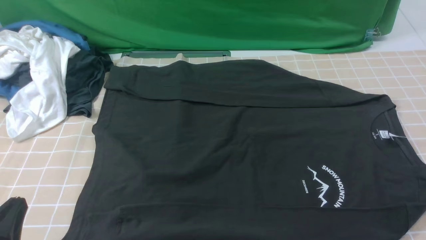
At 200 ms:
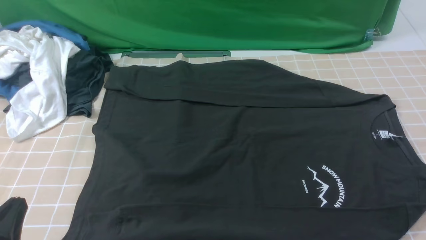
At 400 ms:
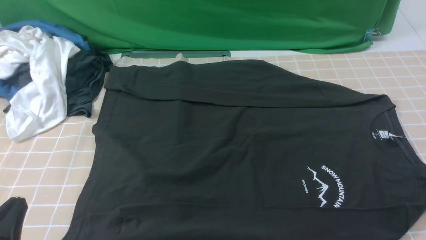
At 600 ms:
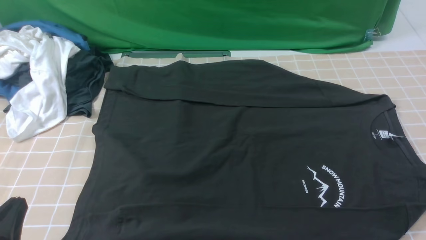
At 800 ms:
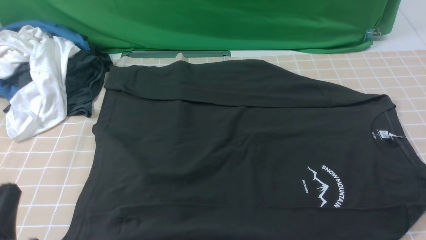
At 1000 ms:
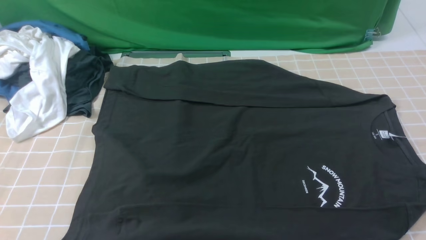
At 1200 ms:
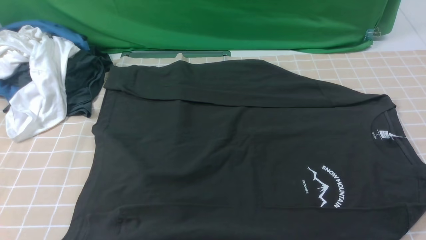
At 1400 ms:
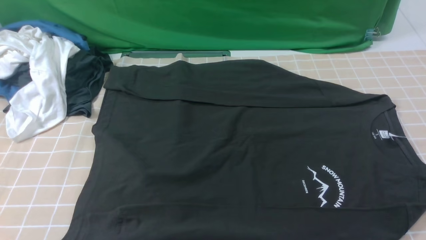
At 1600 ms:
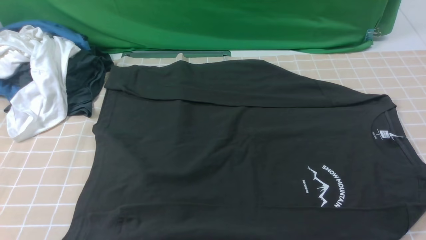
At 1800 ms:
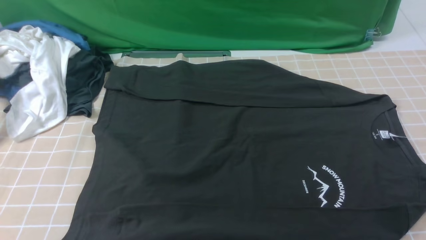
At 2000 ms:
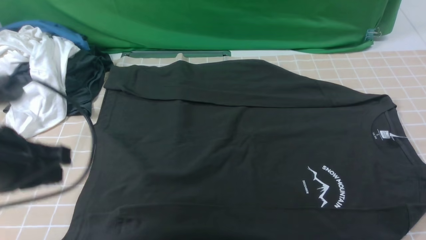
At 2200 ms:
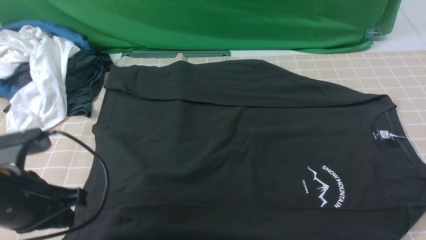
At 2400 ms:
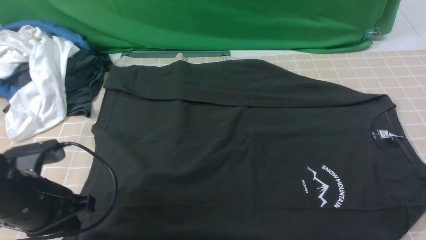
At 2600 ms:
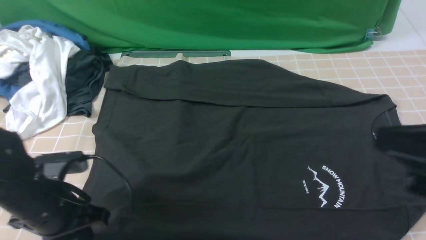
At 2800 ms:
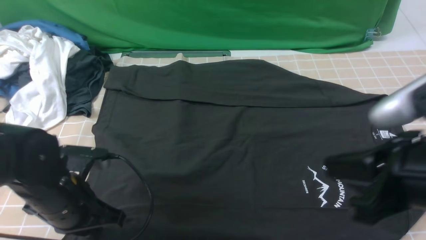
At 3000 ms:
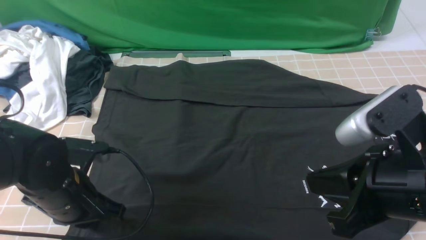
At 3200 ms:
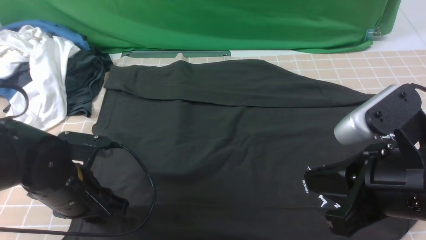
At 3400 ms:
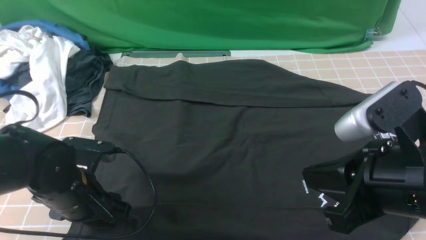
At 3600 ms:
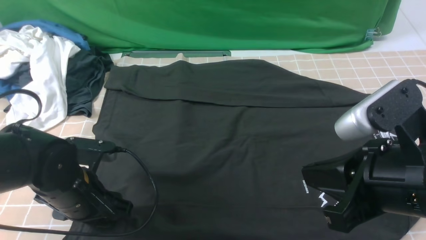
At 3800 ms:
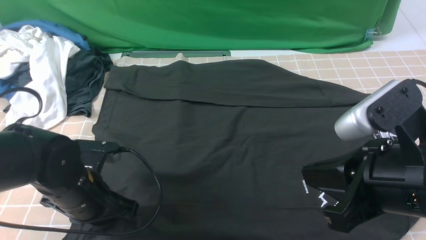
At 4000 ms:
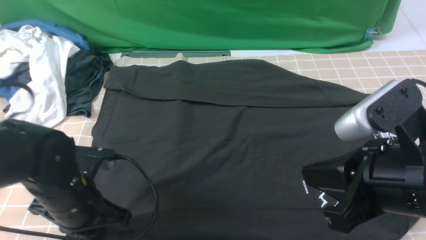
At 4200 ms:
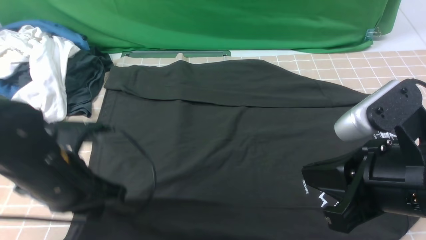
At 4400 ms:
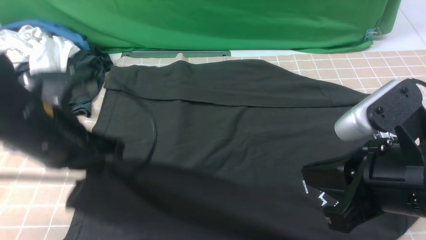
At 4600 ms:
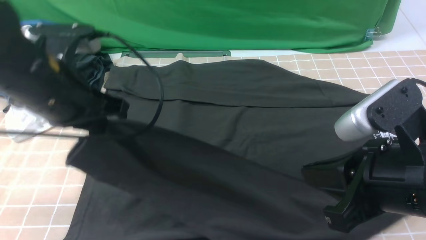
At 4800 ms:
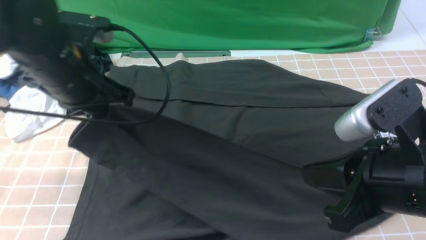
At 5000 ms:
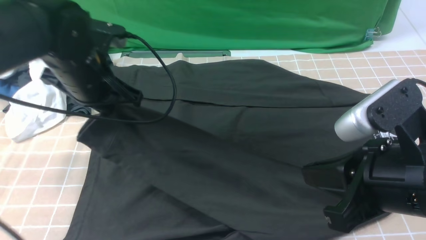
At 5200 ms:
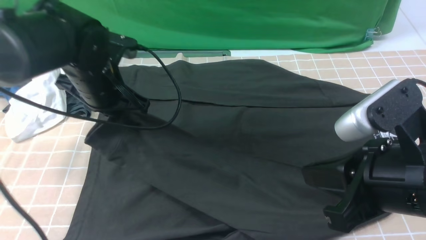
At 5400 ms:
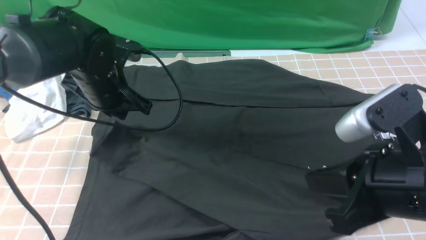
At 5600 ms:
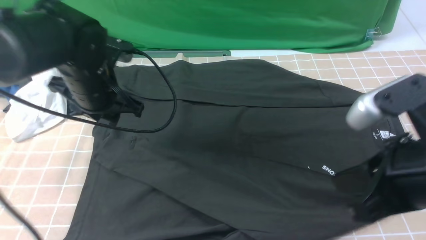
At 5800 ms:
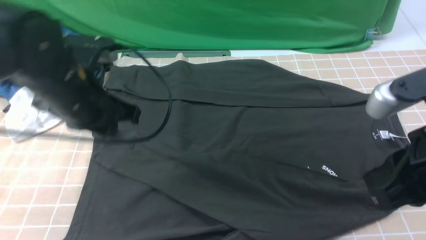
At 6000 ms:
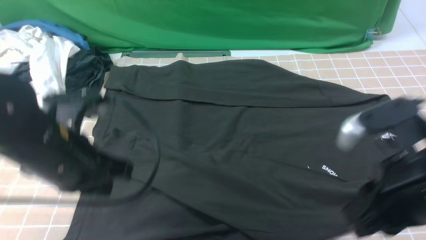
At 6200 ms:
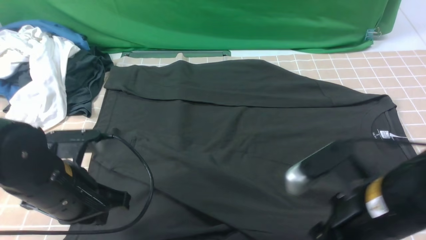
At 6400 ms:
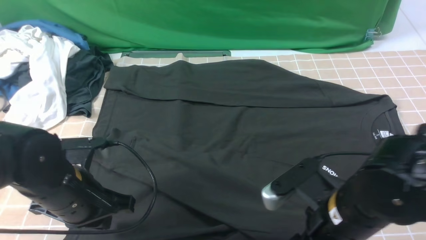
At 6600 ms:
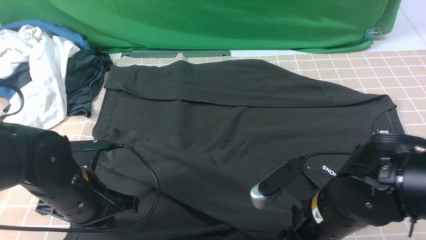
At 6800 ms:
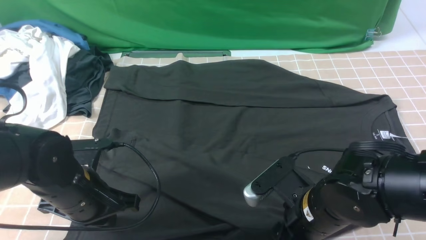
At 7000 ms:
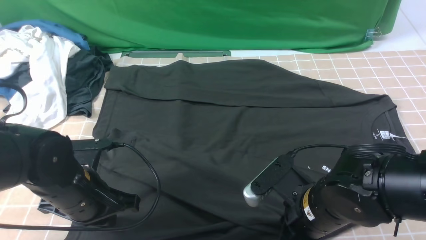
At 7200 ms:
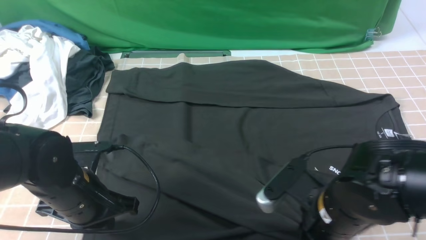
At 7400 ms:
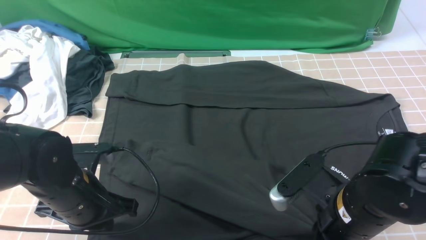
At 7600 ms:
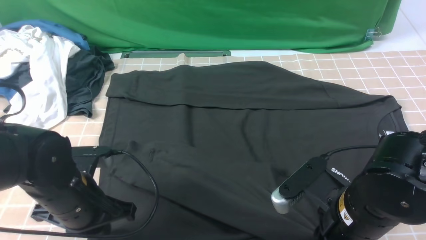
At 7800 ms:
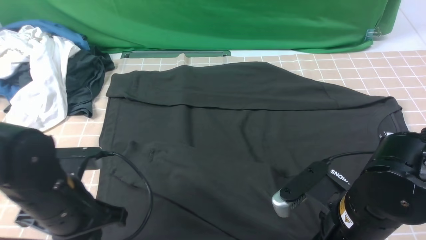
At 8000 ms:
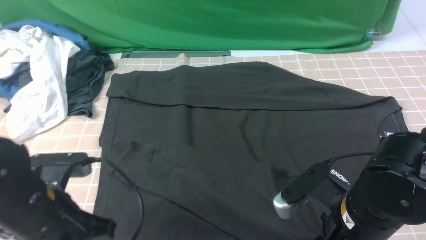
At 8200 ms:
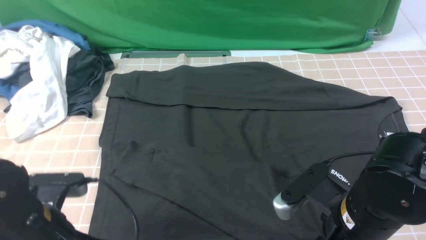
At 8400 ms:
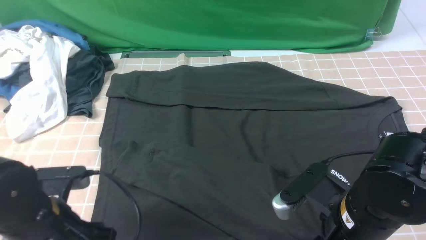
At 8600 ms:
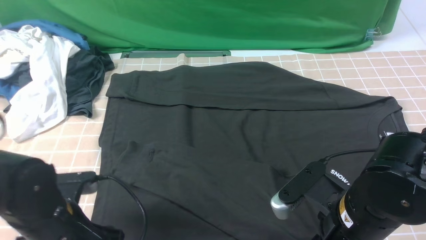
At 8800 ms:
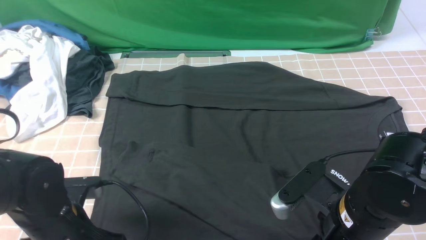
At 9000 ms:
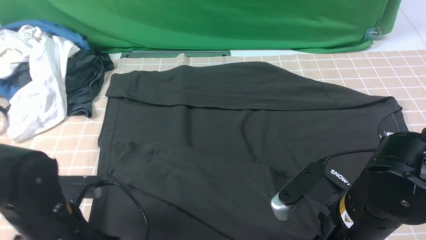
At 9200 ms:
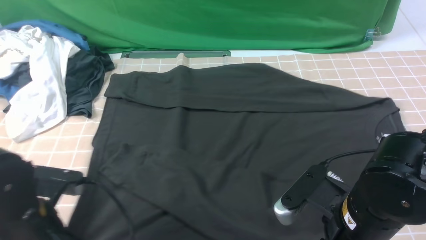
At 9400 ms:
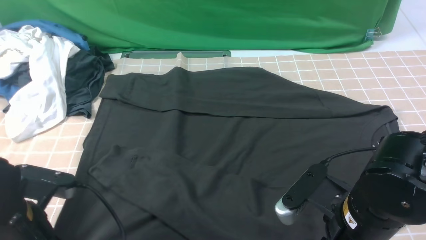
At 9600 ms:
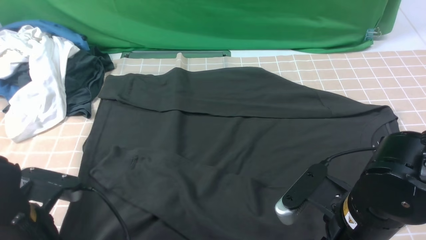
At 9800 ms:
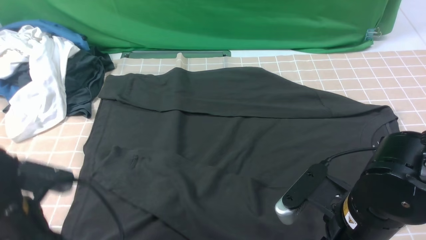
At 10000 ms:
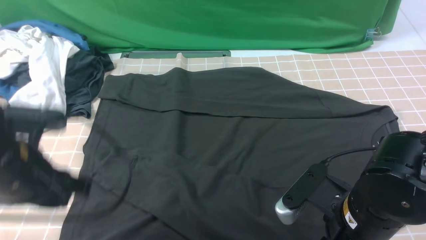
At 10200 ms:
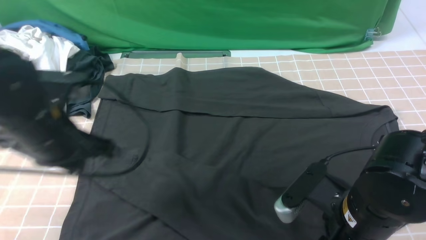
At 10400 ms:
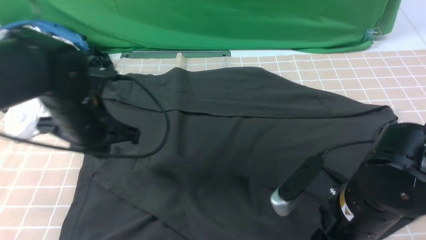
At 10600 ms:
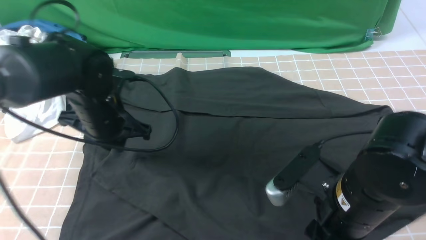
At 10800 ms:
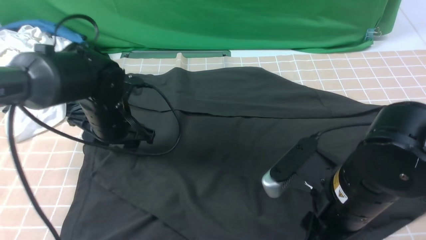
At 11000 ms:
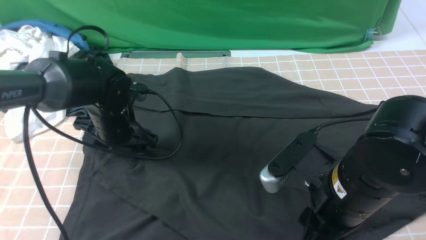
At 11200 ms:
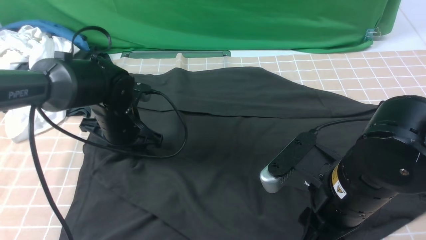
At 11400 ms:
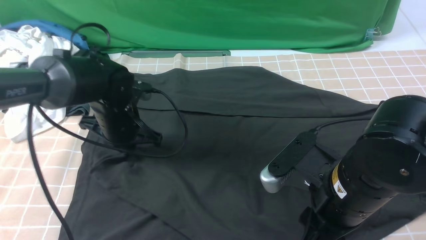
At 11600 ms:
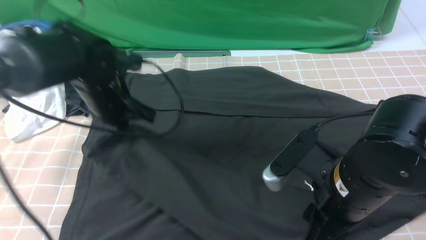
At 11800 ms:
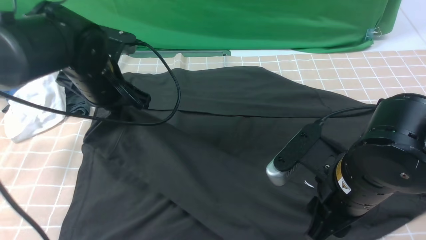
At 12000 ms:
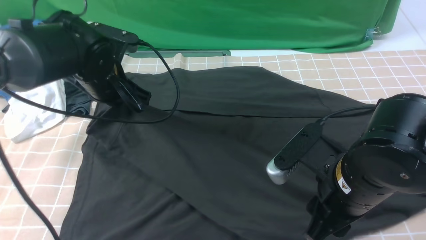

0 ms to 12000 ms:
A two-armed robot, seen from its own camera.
Step, 0 ms to 3800 ms: use the left arm to clamp the cuff closest to it.
0 ms to 1600 ms: The left gripper shifts roughly 20 cm upward.
1600 ms to 3000 ms: The right gripper moves to the left, upward and forward, approximately 20 cm, and closes its fingers. The left gripper goes approximately 25 cm downward and forward.
3000 ms to 4400 ms: The left gripper moves upward, about 10 cm, and opens, then closes once more.
4400 ms to 6000 ms: The right gripper opens its fingers; the left gripper reaches about 10 cm forward, then returns.
6000 ms to 7600 ms: The grippers both shift downward by some 5 cm. The right gripper opens, then closes again.
7600 ms to 9000 ms: The right gripper opens up; the left gripper opens, then closes again.
9000 ms to 10400 ms: The left gripper goes approximately 15 cm forward and upward.
10400 ms to 12000 ms: The left gripper travels forward by some 5 cm, reaches roughly 5 cm downward, then returns, and opens, then closes once more.

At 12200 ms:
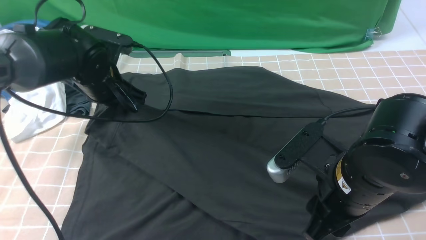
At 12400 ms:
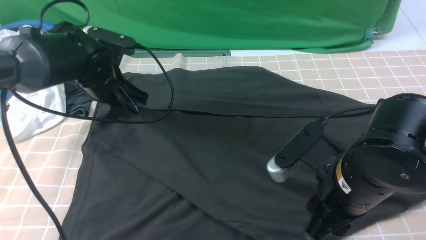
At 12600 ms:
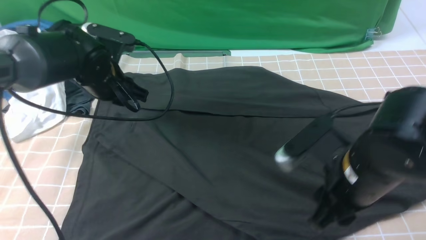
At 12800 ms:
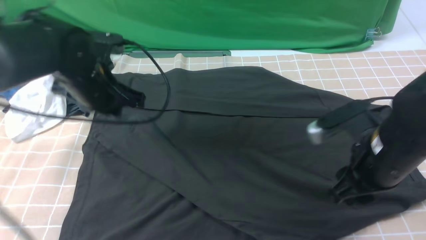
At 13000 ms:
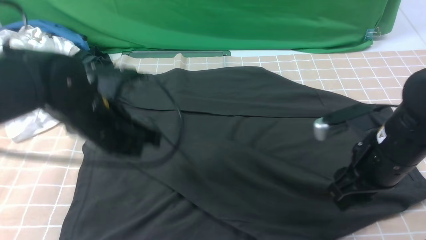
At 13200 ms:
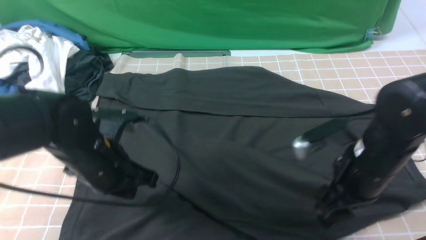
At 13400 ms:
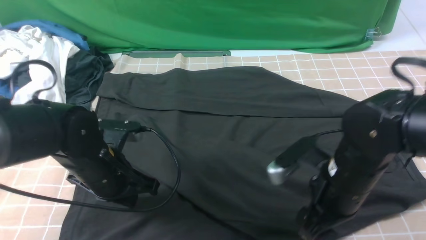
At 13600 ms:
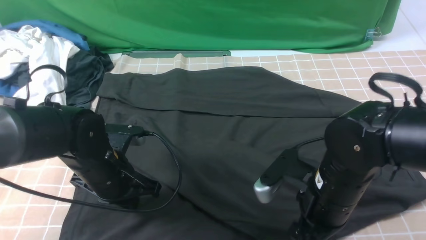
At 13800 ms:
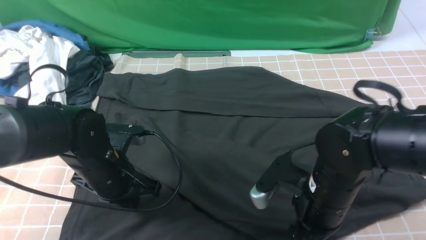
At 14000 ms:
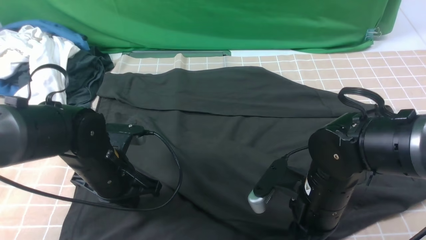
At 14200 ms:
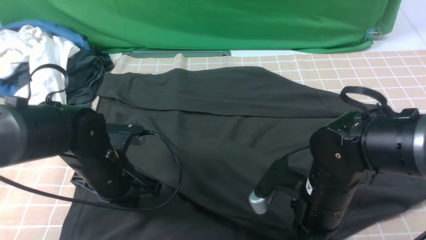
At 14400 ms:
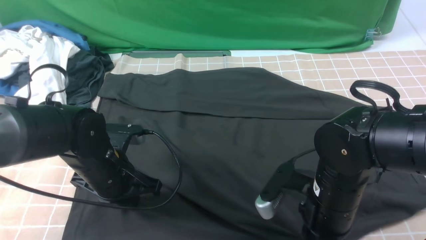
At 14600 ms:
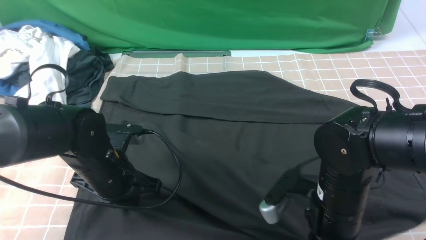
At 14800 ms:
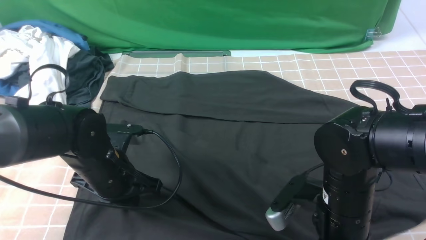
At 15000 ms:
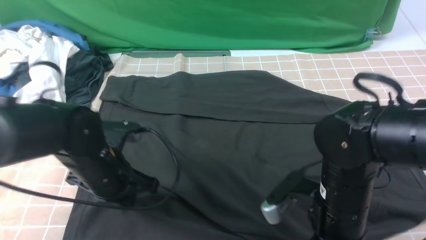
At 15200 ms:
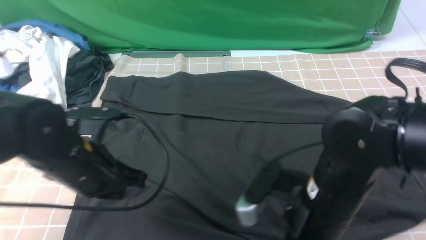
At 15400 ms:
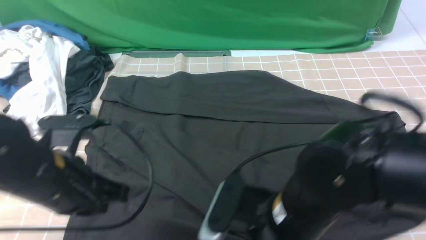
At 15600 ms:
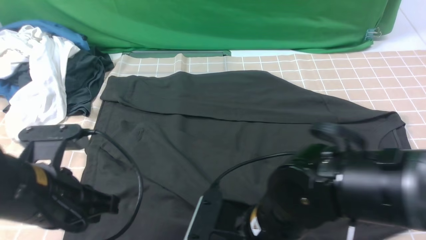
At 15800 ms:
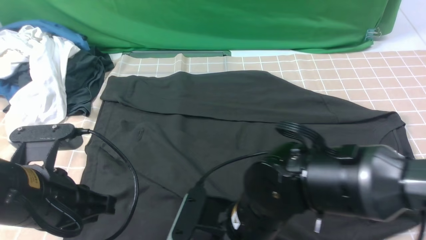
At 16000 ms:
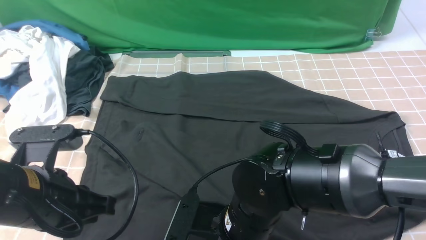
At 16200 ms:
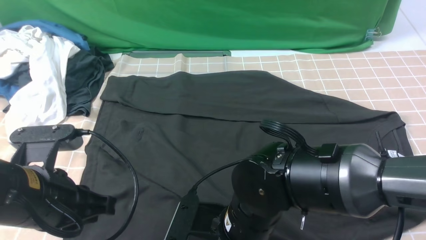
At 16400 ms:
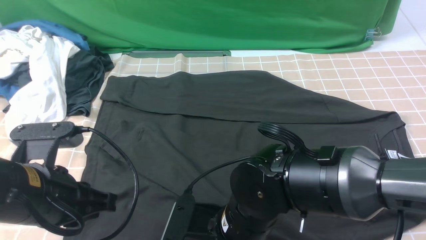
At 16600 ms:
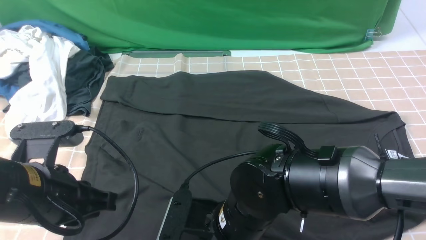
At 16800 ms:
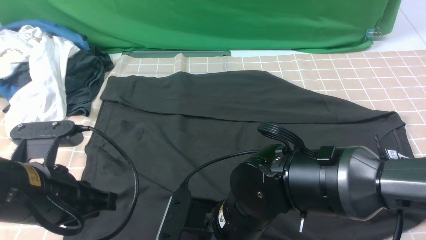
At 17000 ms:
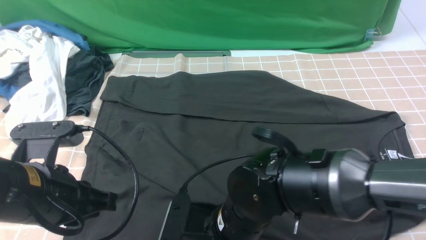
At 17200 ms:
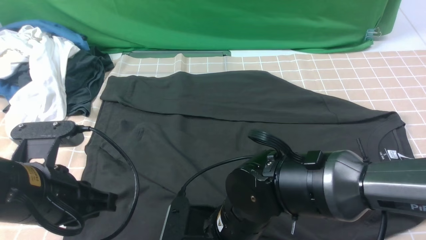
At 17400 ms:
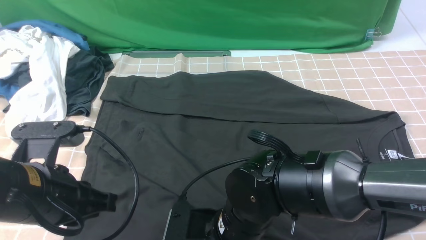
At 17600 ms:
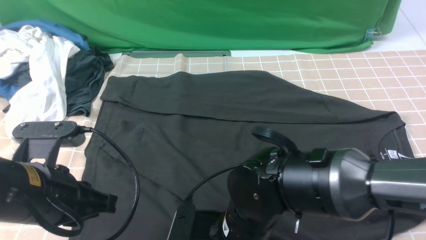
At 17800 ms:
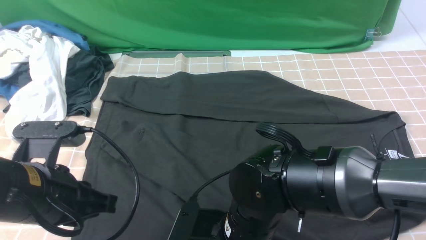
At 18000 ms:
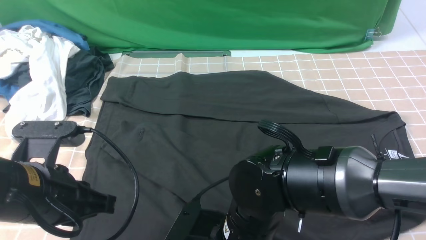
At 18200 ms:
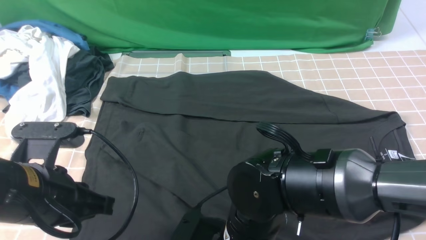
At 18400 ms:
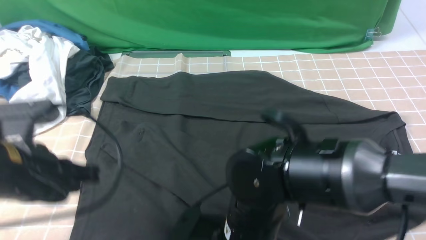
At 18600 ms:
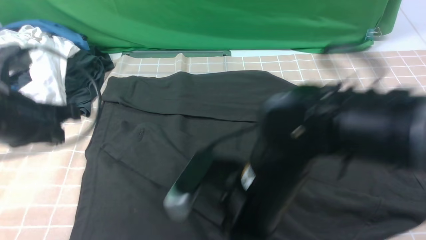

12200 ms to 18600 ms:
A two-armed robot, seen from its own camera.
12200 ms to 13800 ms: The left gripper travels backward and downward by some 15 cm. The right gripper shifts roughly 5 cm downward.
13800 ms to 15400 ms: The left gripper is displaced upward and backward by approximately 10 cm. Meanwhile the right gripper shifts about 5 cm to the left, and closes up.
15400 ms to 17000 ms: The right gripper goes some 5 cm to the left, and opens.
17000 ms to 18600 ms: The left gripper shifts some 10 cm forward. The right gripper heads upward, covering some 10 cm, and closes.
